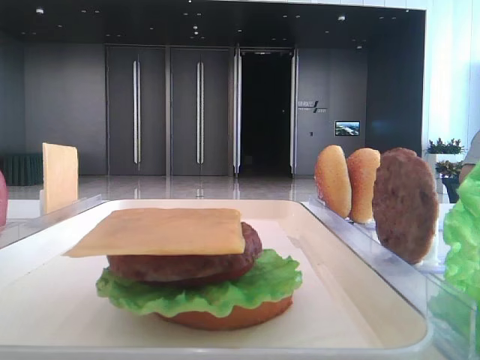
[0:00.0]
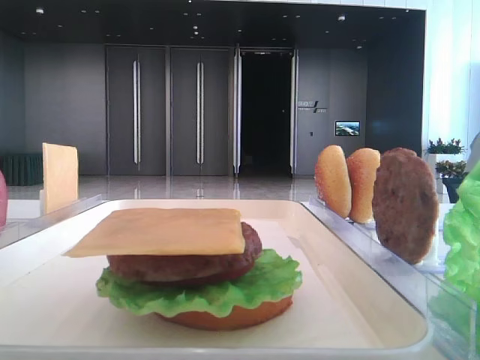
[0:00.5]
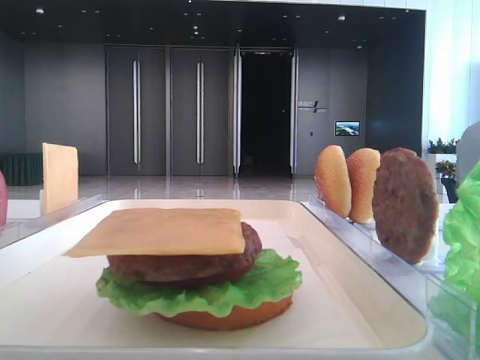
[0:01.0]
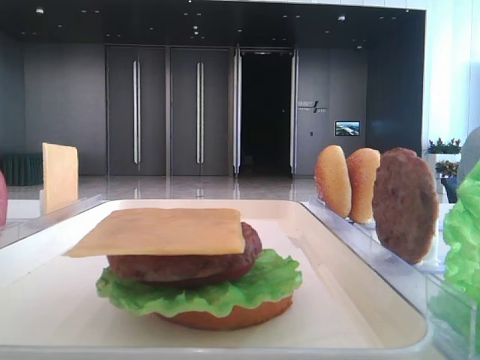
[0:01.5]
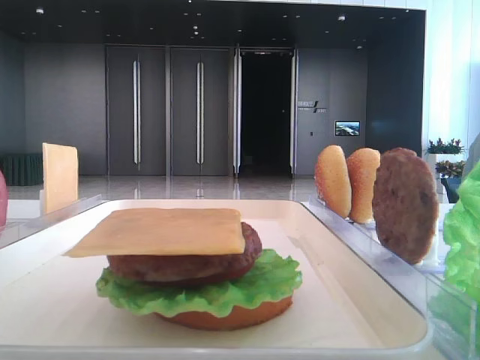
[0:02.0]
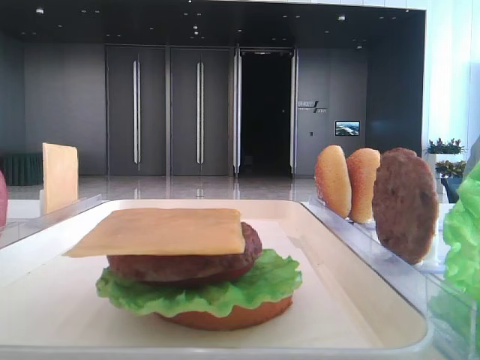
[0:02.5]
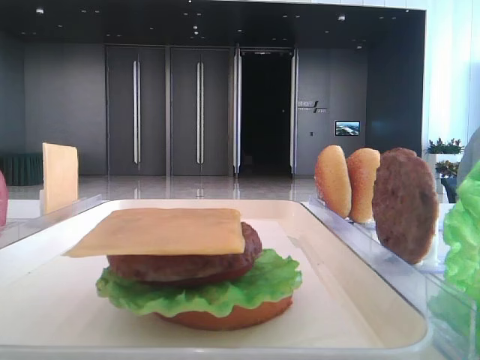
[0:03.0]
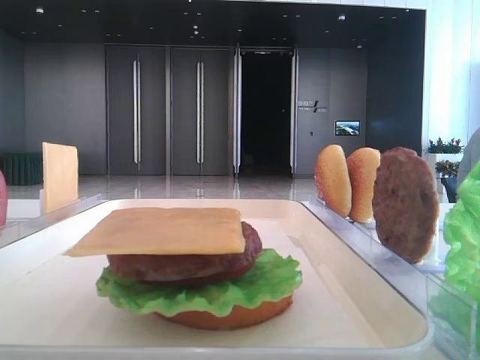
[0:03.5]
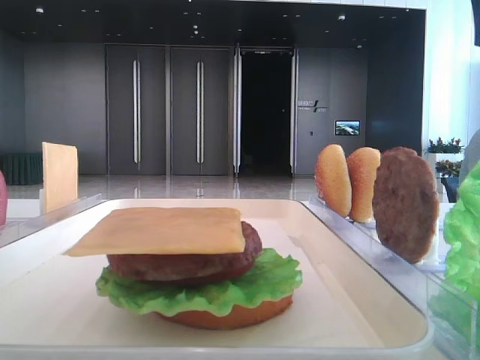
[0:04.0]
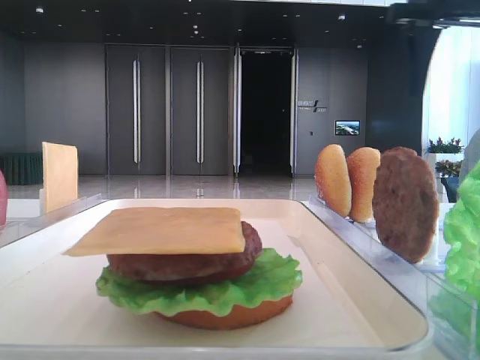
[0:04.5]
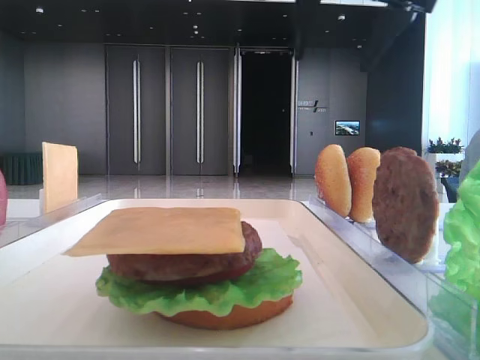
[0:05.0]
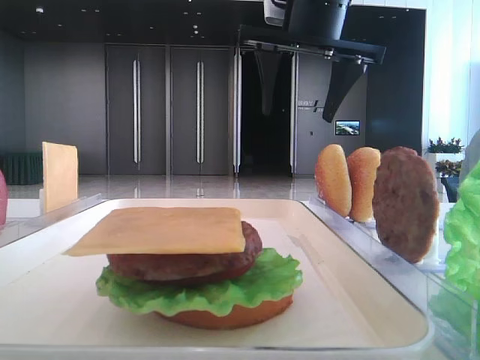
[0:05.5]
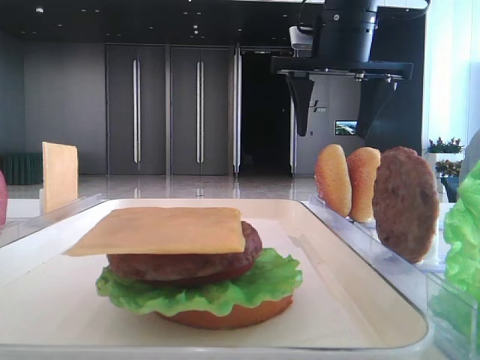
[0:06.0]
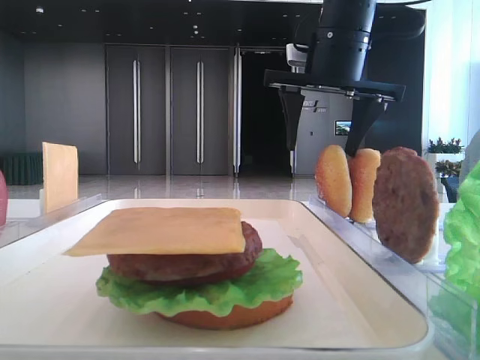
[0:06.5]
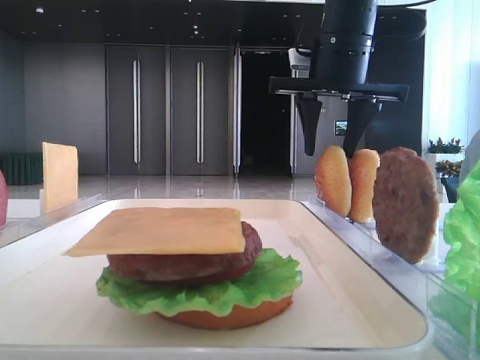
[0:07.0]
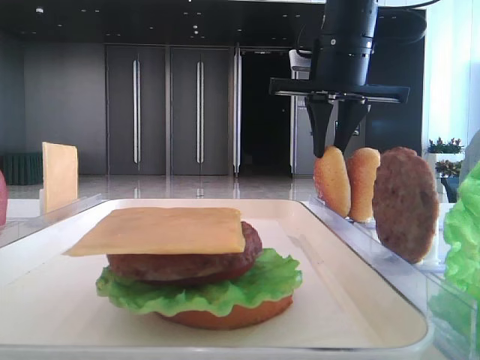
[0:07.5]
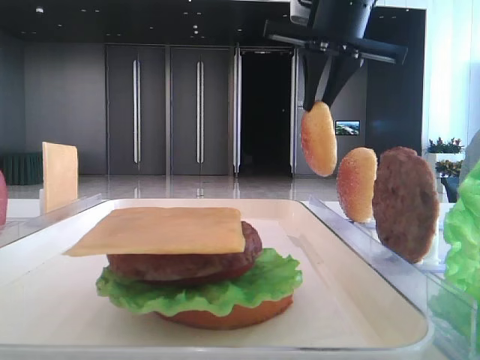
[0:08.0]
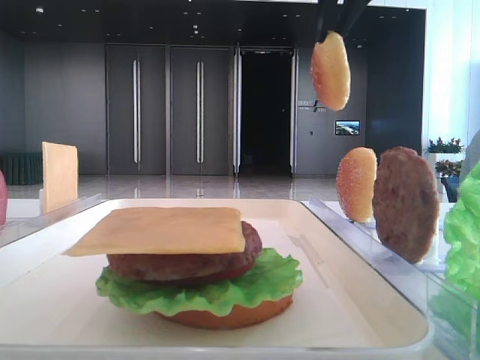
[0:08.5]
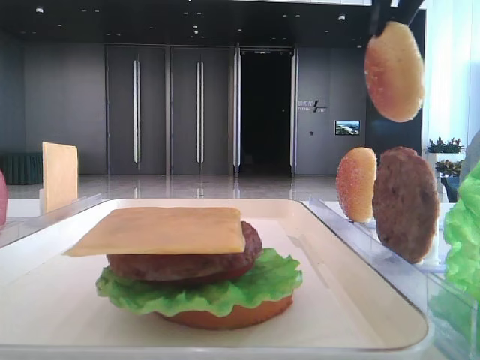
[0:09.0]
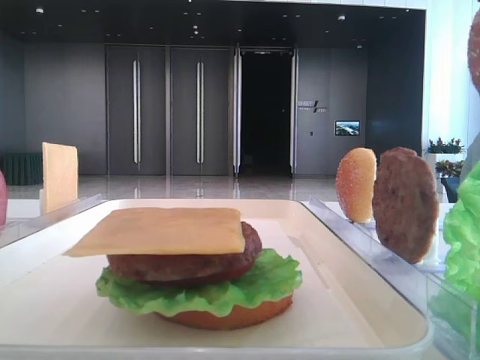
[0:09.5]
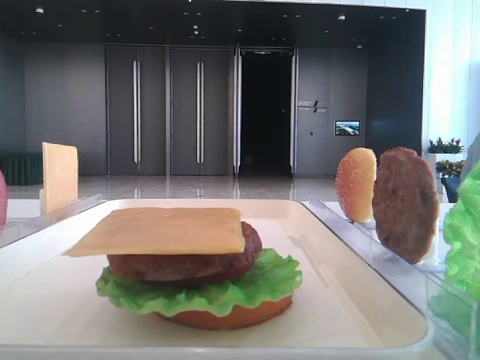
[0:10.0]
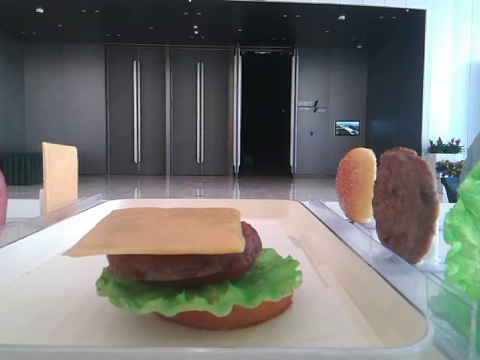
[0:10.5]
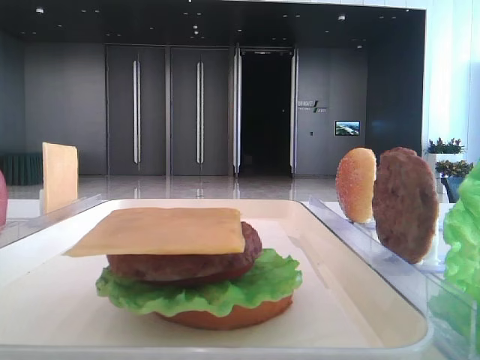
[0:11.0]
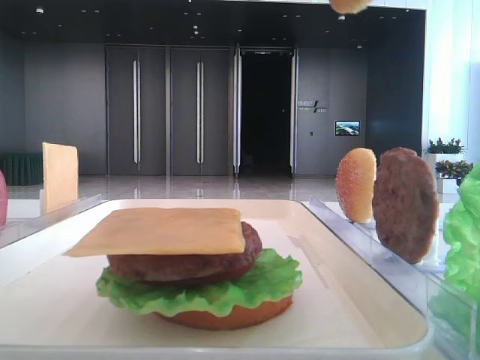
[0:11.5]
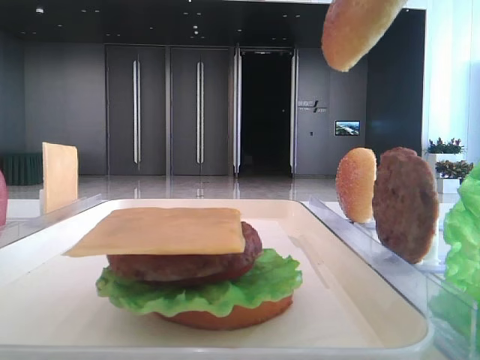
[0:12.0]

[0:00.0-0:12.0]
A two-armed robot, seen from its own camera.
Step, 0:00.0 to 0:07.5: Pick up the top bread slice with the right hand.
0:02.0 to 0:04.0: The right gripper is displaced forward by roughly 35 cm.
0:04.0 to 0:06.0: The right gripper is displaced to the left, forward and downward by roughly 20 cm.
0:06.0 to 0:08.0: The right gripper closes up.
0:08.0 to 0:10.0: The right gripper goes approximately 25 cm backward and to the right.
0:10.0 to 0:12.0: The right gripper ends up some 5 cm from where it was.

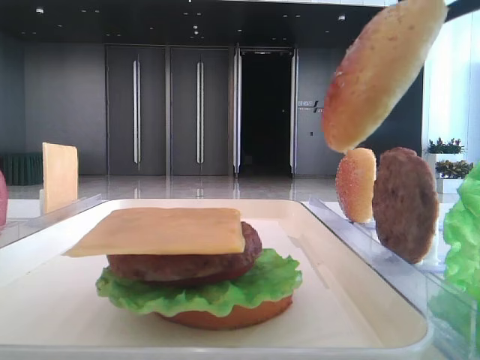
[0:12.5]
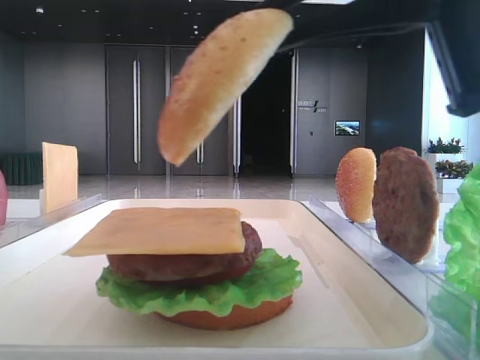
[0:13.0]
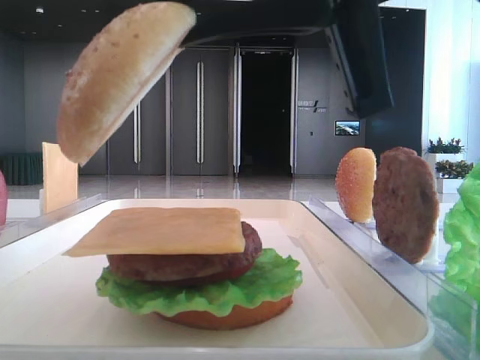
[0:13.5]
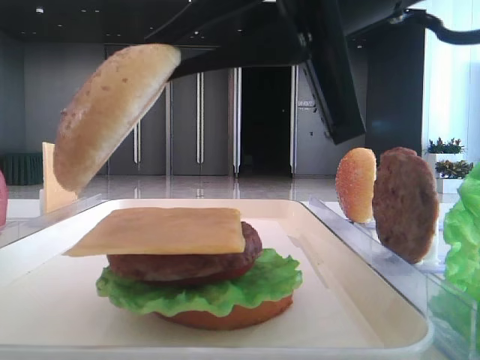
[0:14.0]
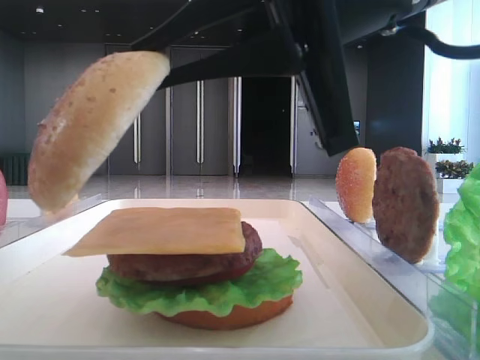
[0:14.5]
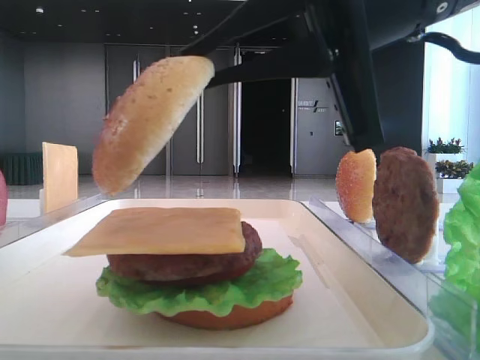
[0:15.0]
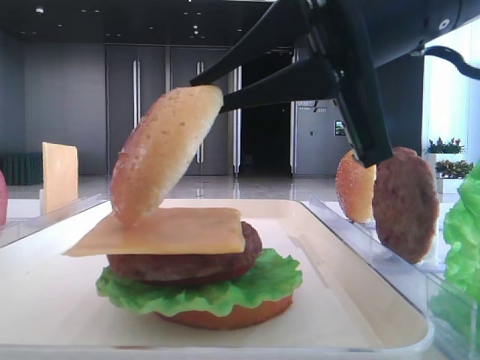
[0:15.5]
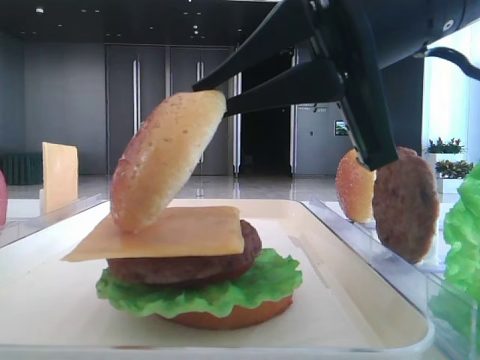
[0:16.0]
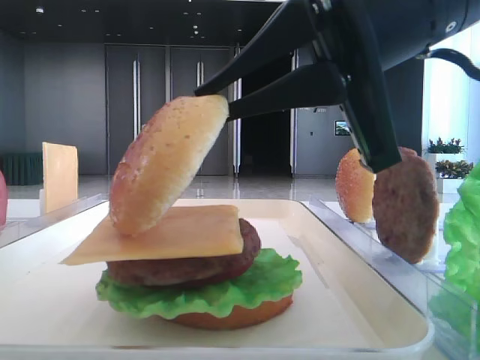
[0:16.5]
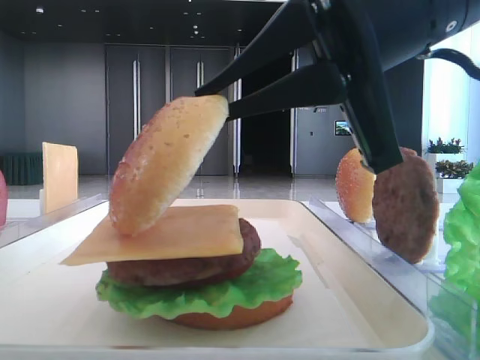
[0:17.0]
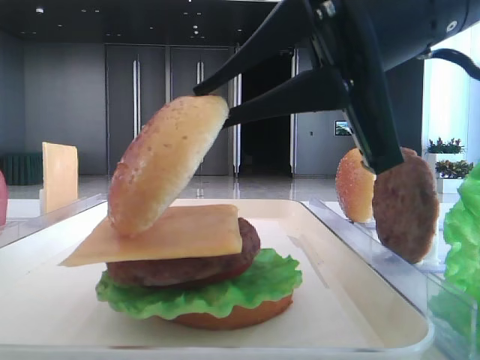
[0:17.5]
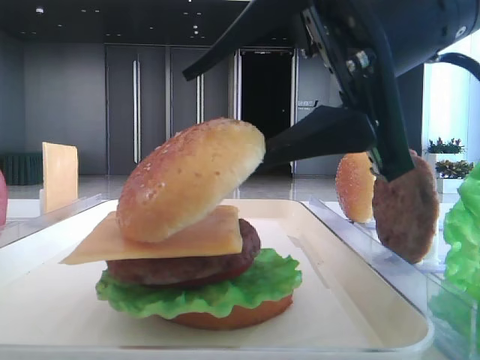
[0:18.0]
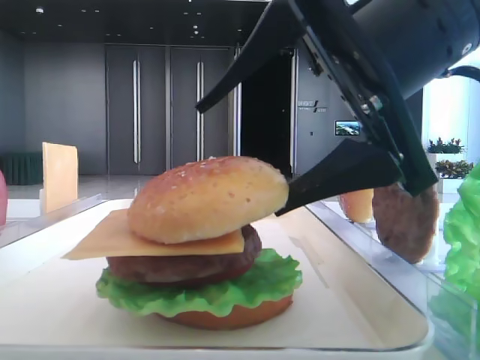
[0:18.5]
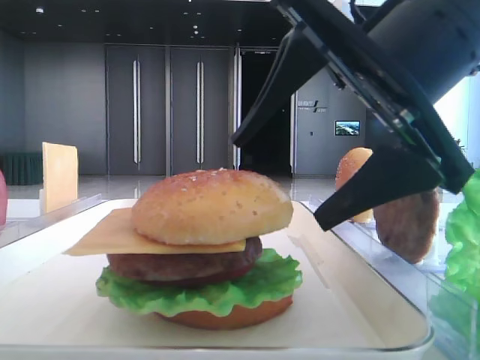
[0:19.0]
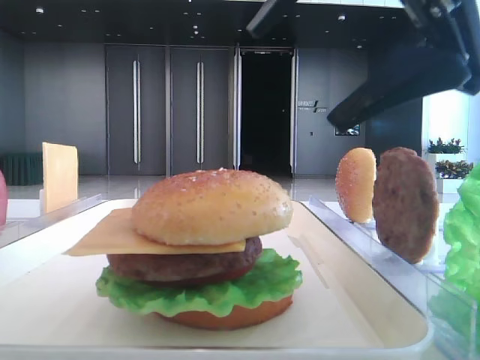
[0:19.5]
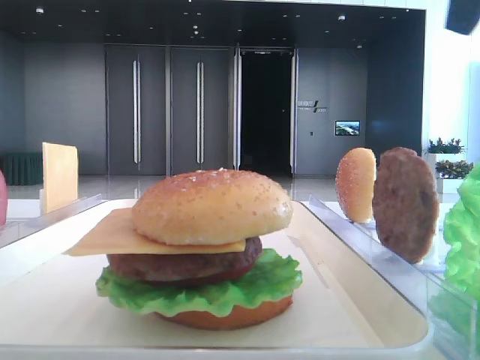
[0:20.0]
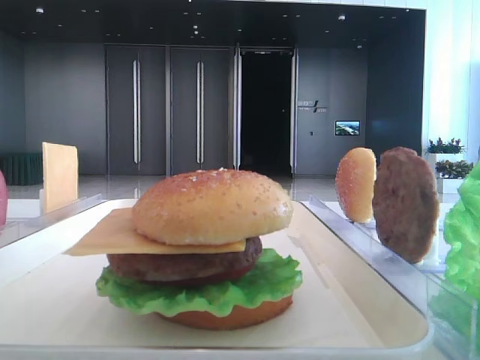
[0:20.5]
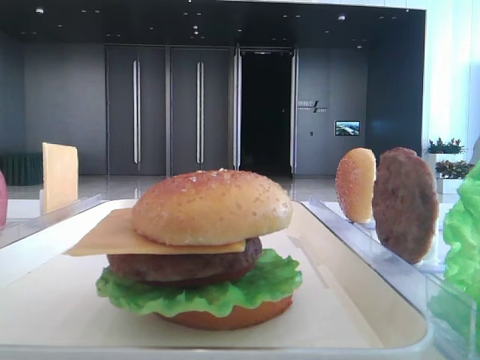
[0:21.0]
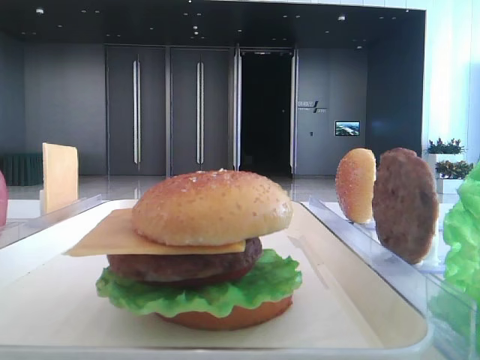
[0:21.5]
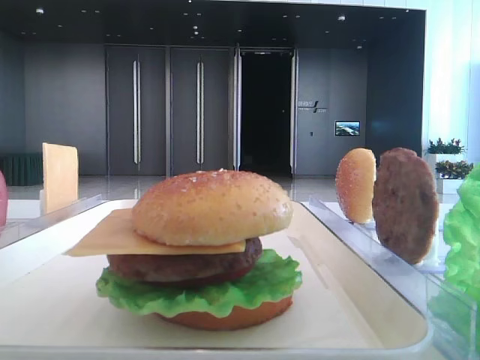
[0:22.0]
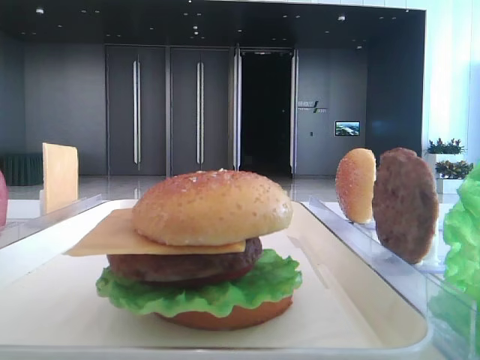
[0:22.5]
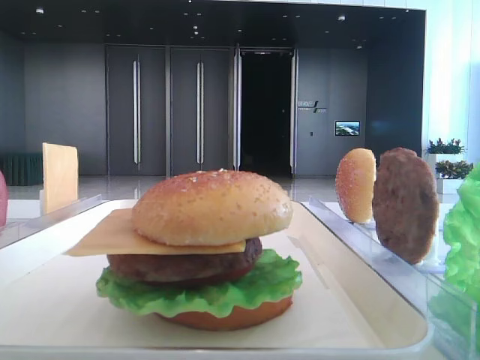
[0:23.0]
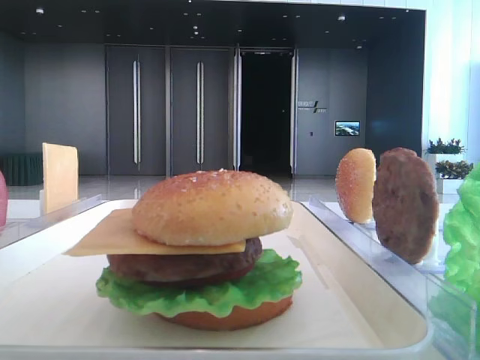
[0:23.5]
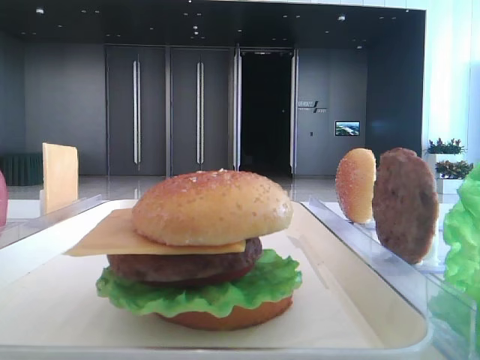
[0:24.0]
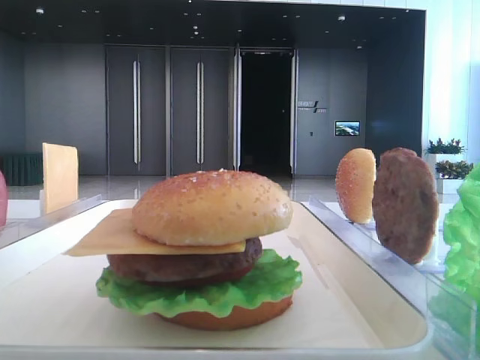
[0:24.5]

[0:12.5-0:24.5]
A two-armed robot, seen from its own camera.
Step, 0:12.5 to 0:18.5: Place the top bread slice on the cheese with the right hand.
0:12.5 to 0:14.5: The right gripper heads to the left and downward, covering roughly 15 cm.
0:14.5 to 0:16.5: There are only small adjustments of the grippers.
0:16.5 to 0:18.5: The right gripper opens its fingers.
0:18.5 to 0:20.5: The right gripper moves to the right and upward, about 25 cm.
0:22.5 to 0:24.5: Both grippers stay put.

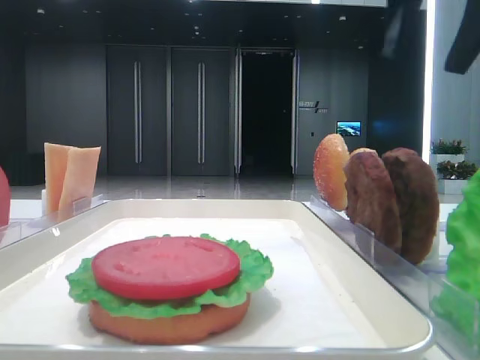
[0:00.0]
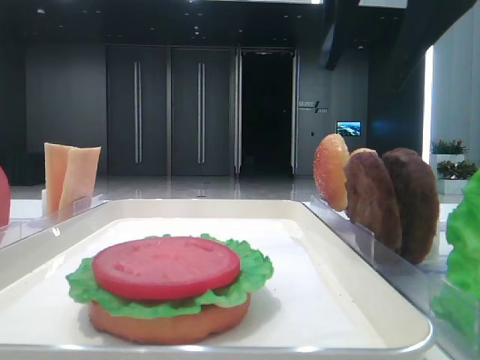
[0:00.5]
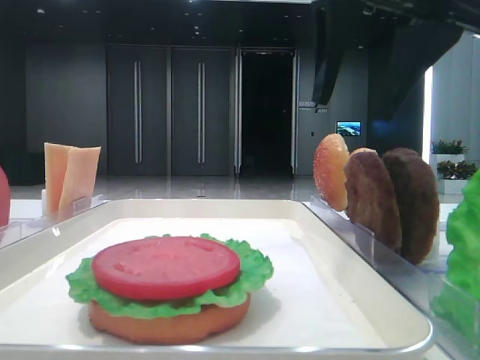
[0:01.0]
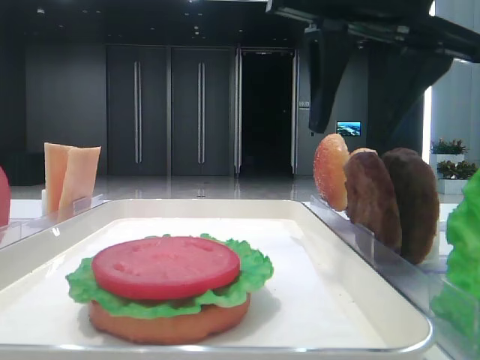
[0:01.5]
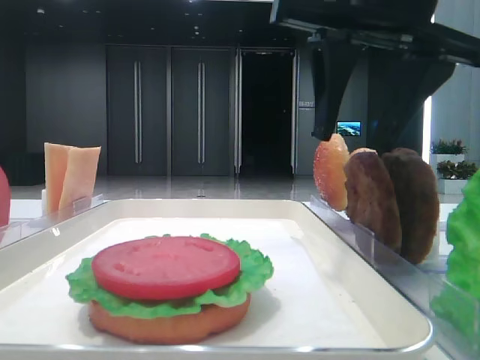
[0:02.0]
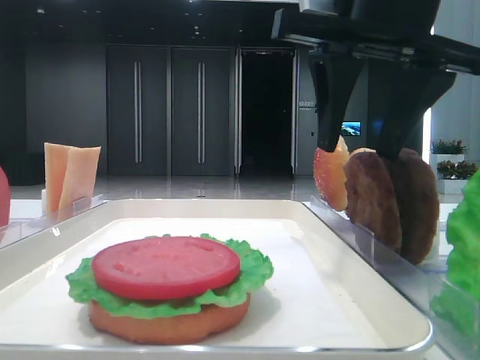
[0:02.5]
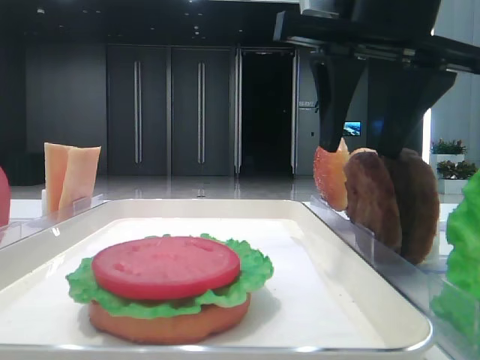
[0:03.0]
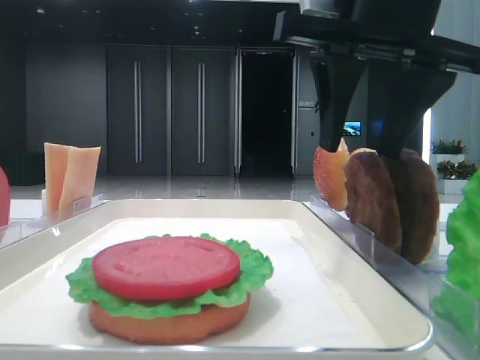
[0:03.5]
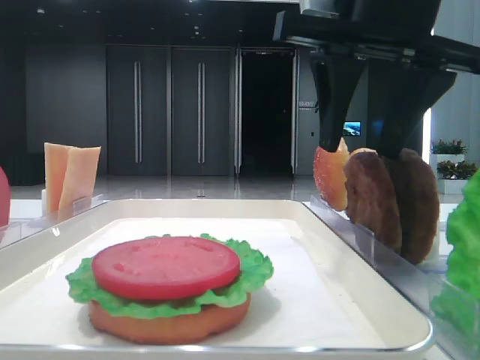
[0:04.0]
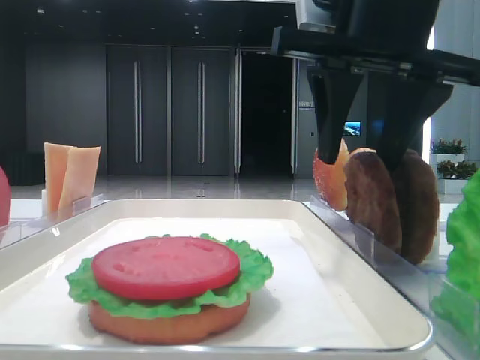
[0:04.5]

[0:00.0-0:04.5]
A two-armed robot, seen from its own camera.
0:00.0 to 0:02.0: The right gripper travels downward and to the left by approximately 10 cm.
0:02.0 to 0:04.5: The grippers make only small movements.
